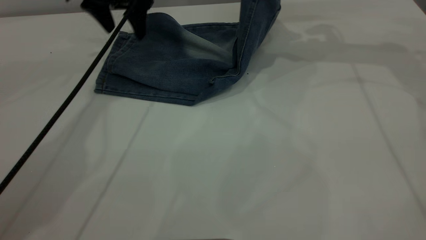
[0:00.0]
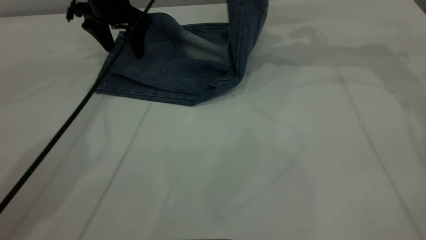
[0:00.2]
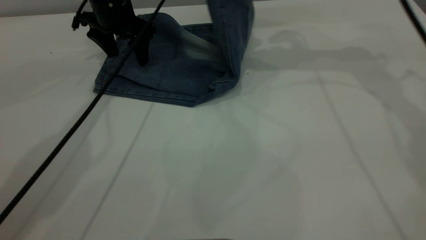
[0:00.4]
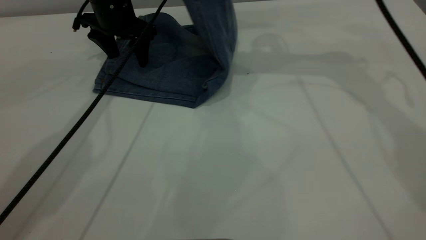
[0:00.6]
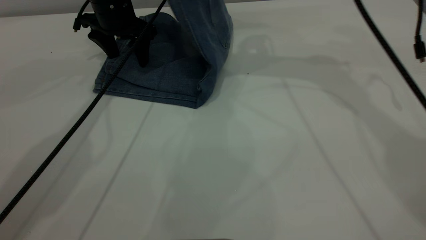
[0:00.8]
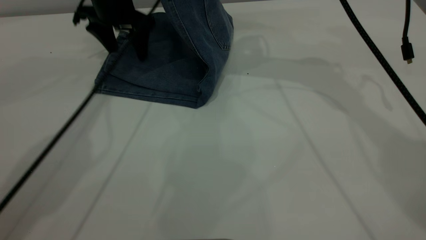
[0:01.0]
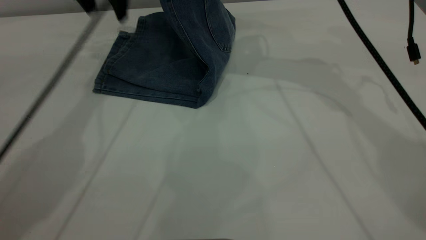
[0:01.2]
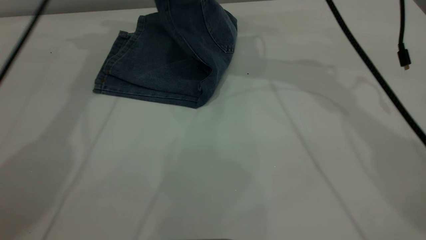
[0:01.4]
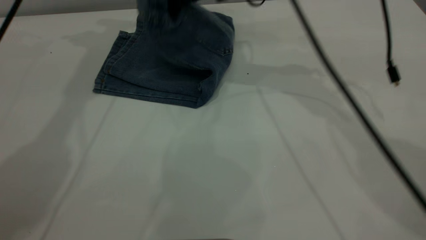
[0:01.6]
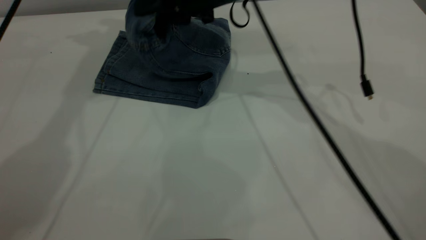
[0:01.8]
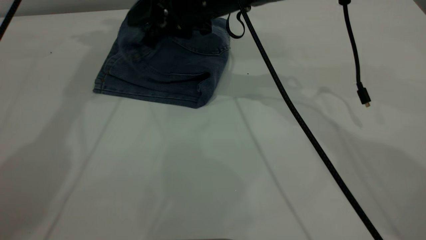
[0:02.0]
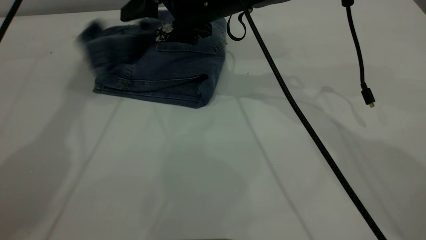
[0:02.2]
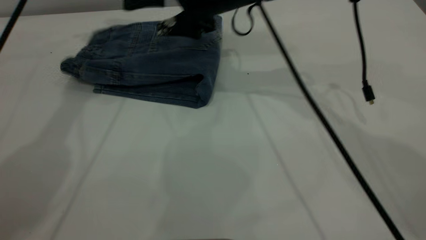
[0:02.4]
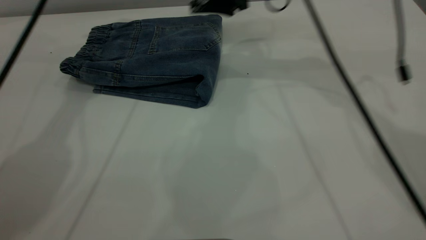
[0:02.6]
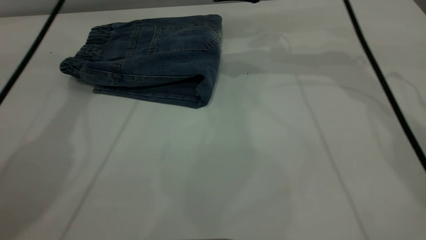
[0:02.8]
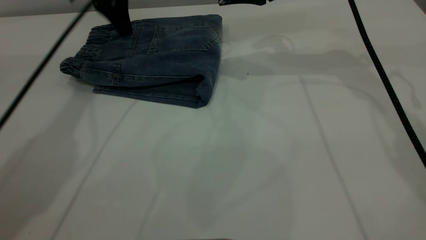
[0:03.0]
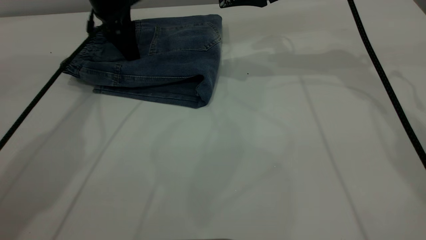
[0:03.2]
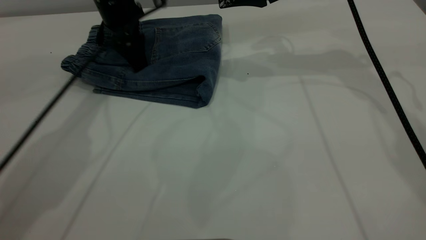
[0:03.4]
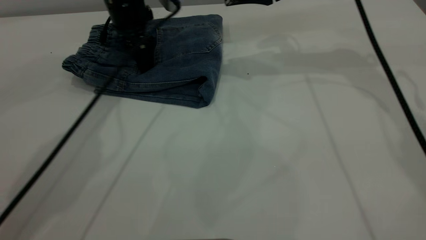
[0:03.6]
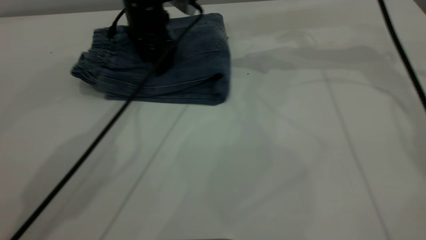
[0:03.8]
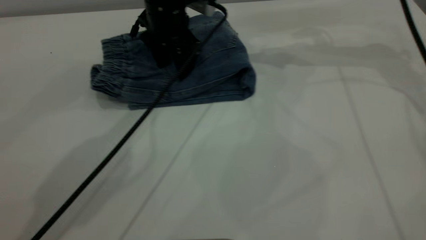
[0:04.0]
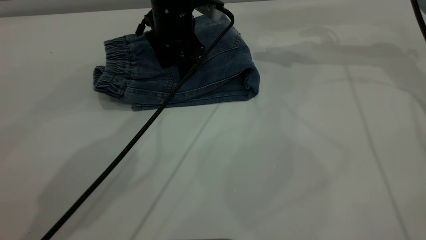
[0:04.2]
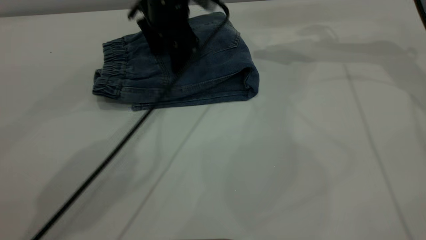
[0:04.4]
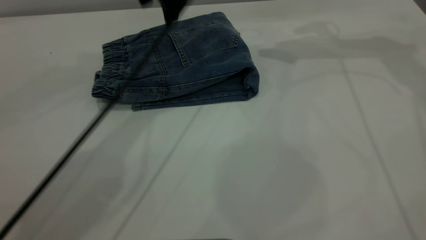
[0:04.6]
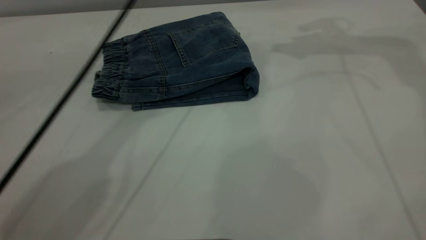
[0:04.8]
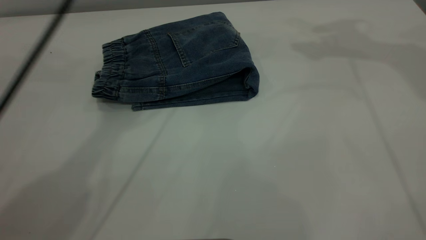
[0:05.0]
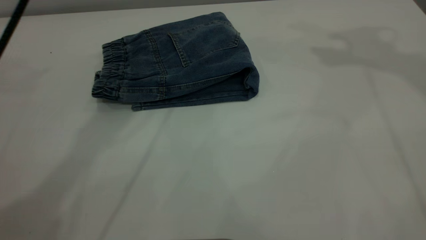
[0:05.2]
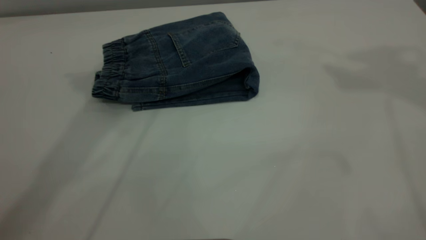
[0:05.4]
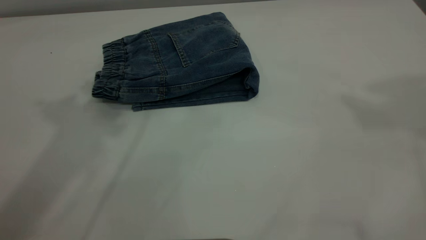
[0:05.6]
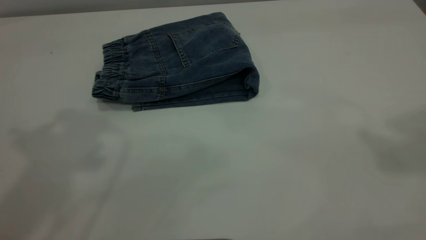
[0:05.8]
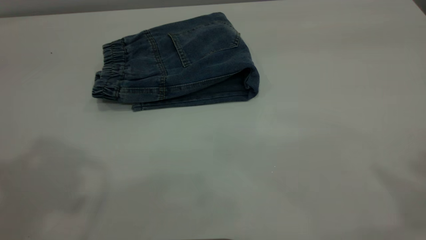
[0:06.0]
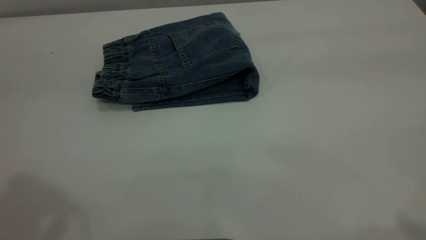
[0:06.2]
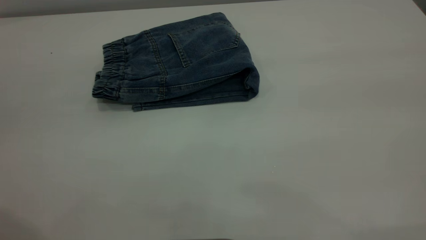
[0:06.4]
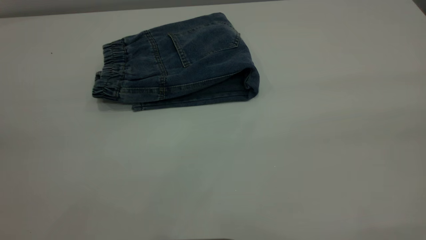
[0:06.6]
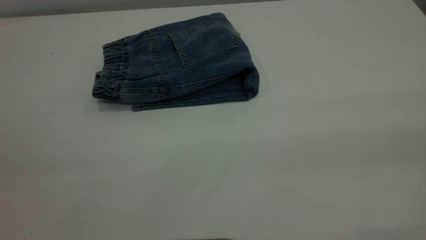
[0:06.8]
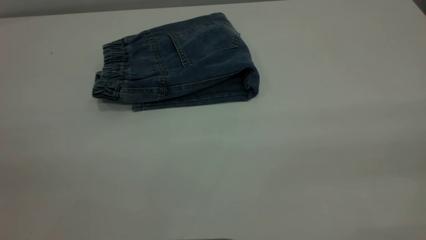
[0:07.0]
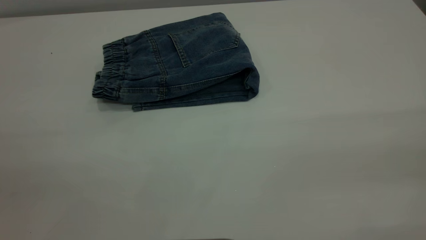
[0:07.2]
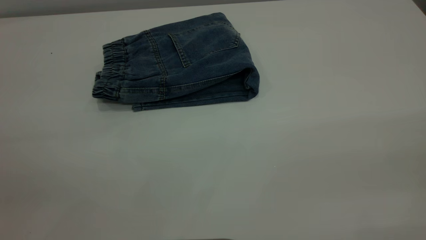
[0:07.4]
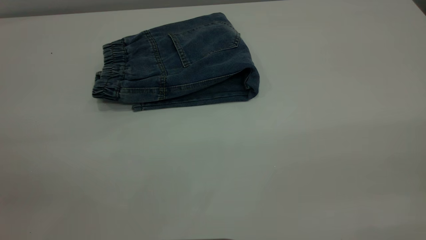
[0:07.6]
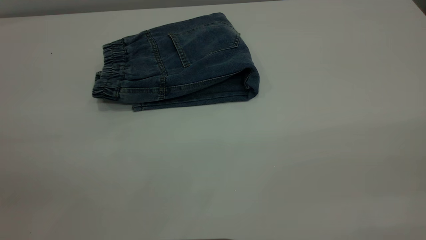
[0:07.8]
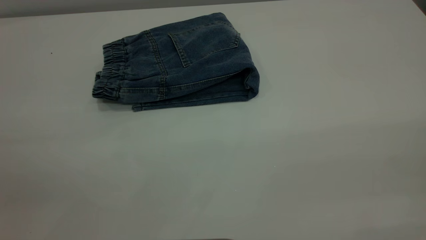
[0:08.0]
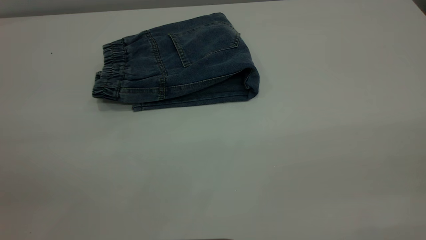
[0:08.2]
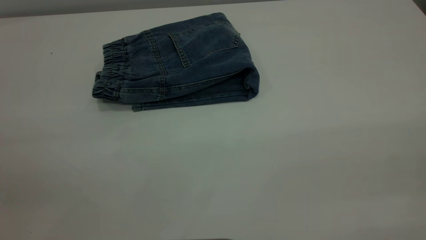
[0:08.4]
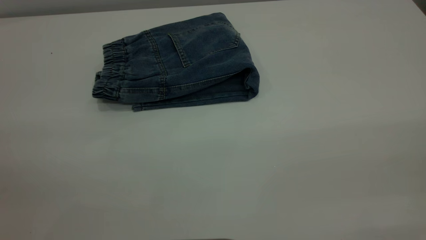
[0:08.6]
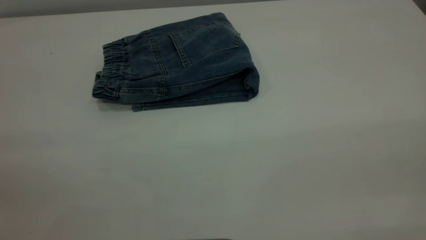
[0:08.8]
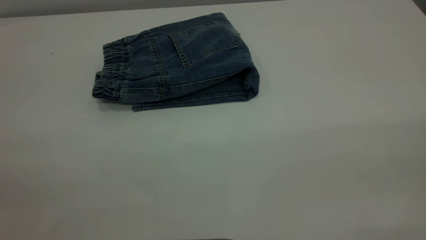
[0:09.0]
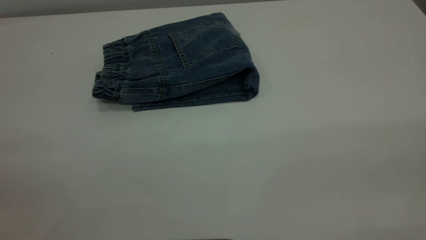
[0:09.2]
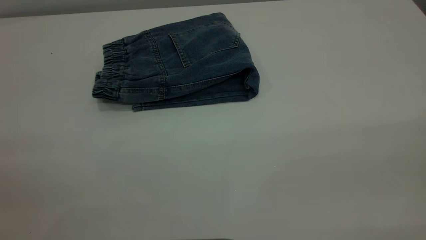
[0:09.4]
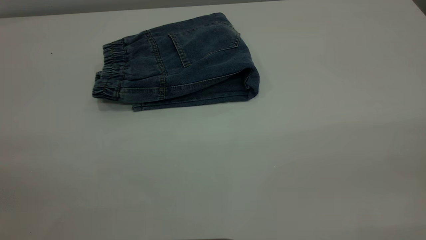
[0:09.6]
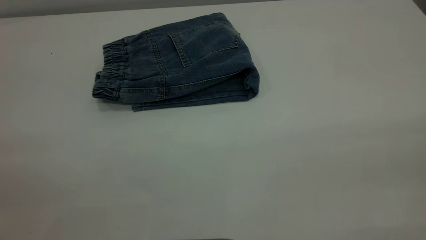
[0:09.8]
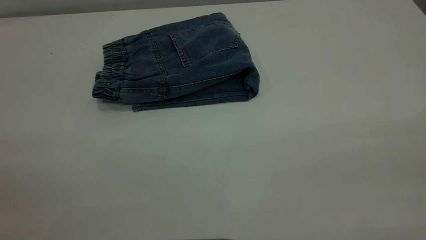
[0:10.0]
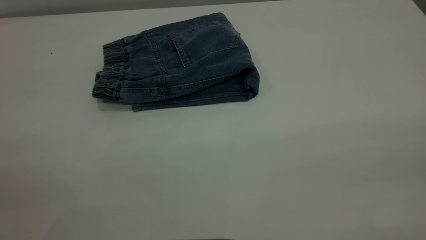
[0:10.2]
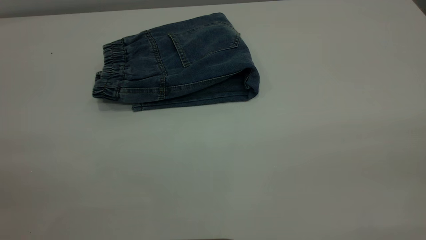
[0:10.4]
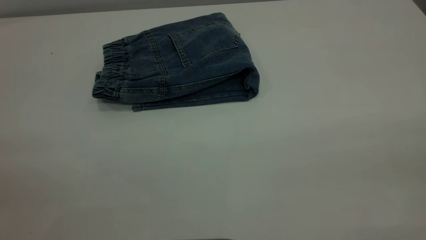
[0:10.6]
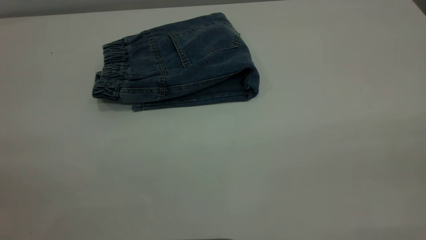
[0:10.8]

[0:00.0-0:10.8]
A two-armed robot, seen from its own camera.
Step, 0:00.0 to 0:02.8: Fold your pants from right to left.
0:00.0 to 0:01.6: The right gripper heads to the left, covering about 20 cm. Meanwhile the left gripper heads upward, covering some 15 cm.
0:01.6 to 0:03.0: The left gripper moves downward, about 15 cm; the right gripper goes about 10 cm to the right, and opens its fingers.
0:03.0 to 0:04.6: The two grippers go about 10 cm to the right and upward.
0:04.6 to 0:06.2: The left gripper moves backward, upward and to the left, about 40 cm. Meanwhile the right gripper heads backward and upward, covering approximately 40 cm.
